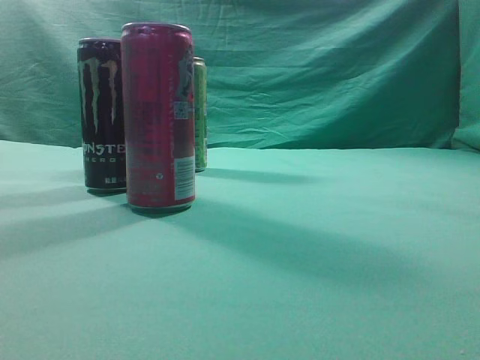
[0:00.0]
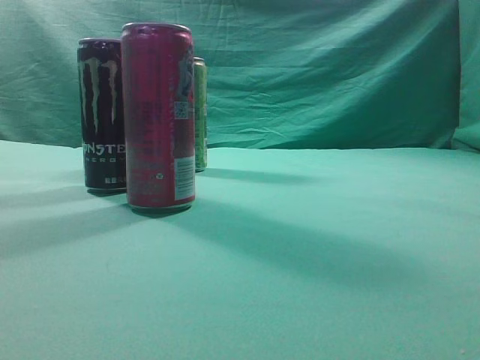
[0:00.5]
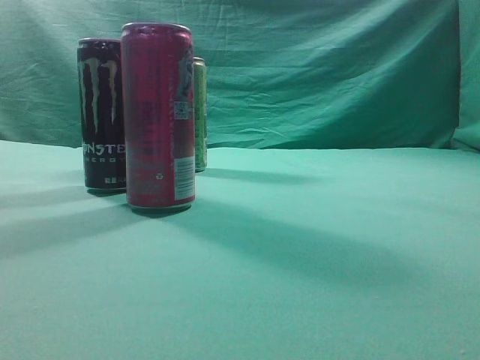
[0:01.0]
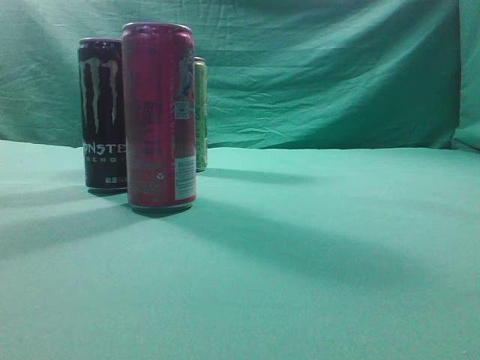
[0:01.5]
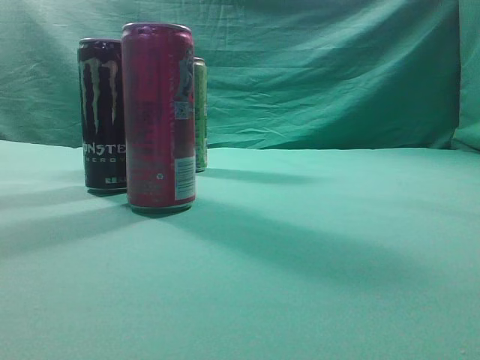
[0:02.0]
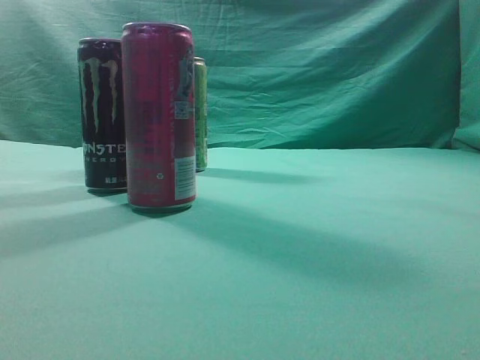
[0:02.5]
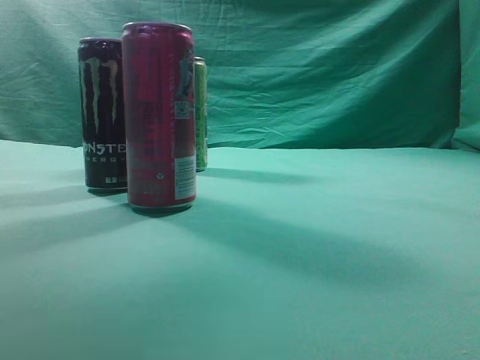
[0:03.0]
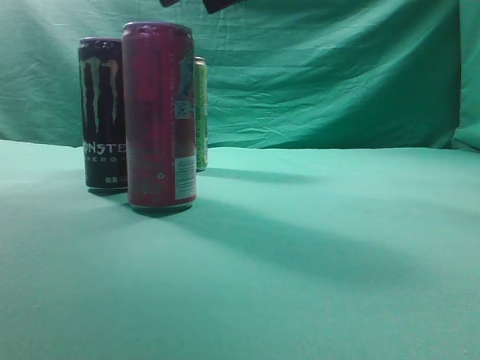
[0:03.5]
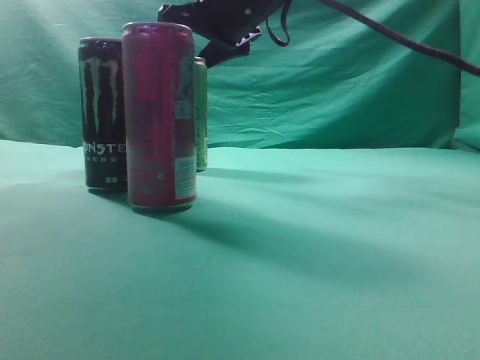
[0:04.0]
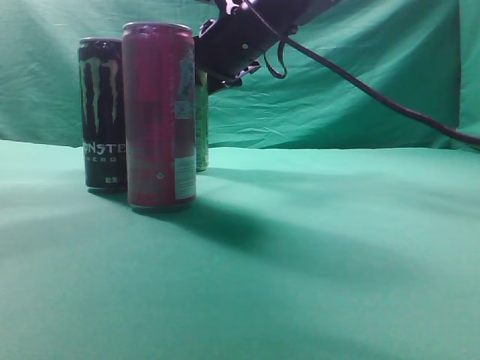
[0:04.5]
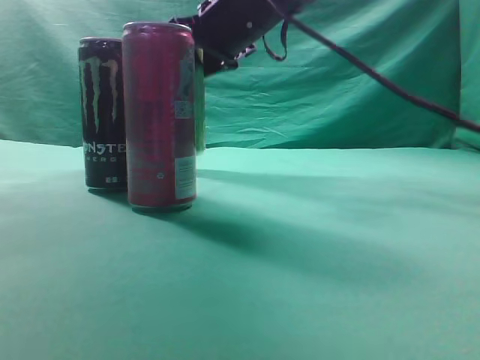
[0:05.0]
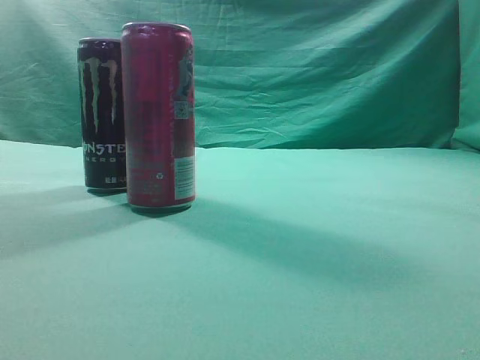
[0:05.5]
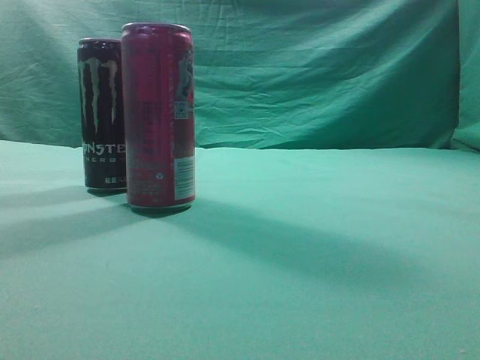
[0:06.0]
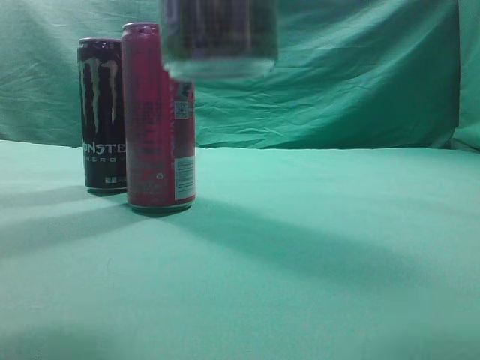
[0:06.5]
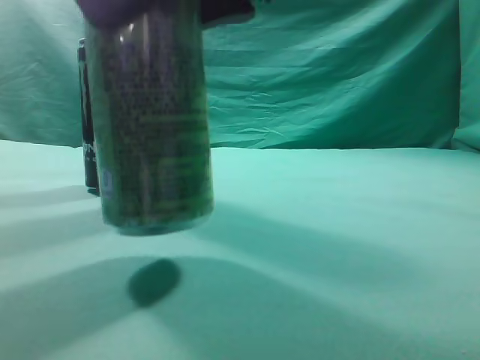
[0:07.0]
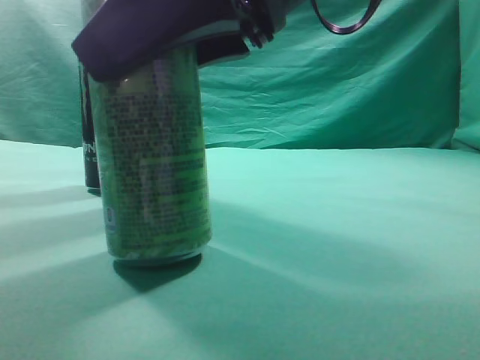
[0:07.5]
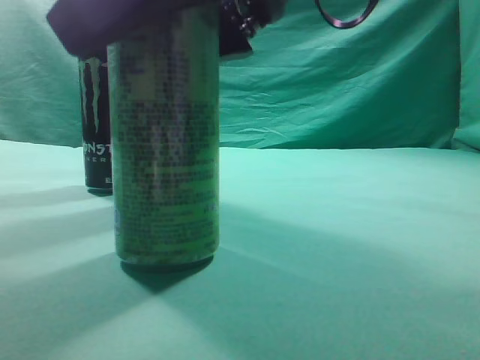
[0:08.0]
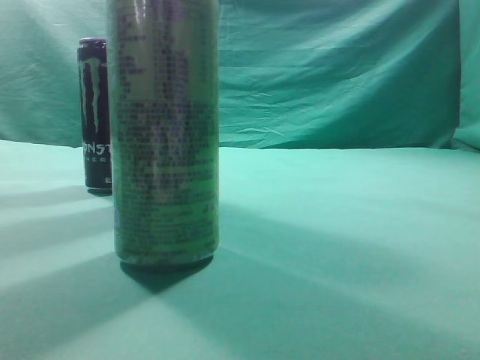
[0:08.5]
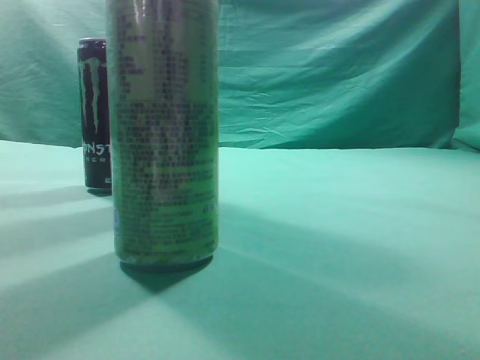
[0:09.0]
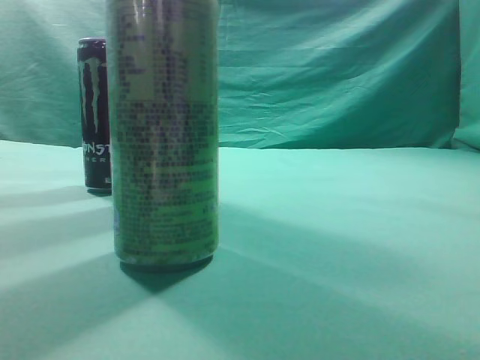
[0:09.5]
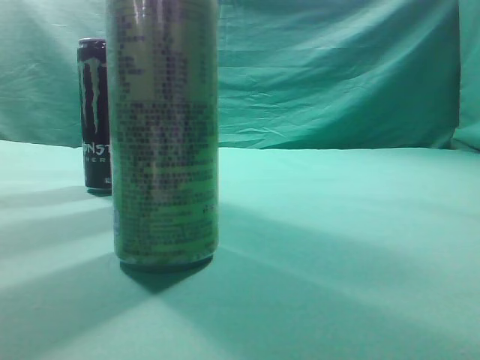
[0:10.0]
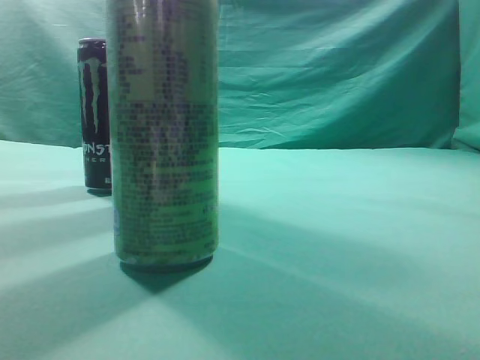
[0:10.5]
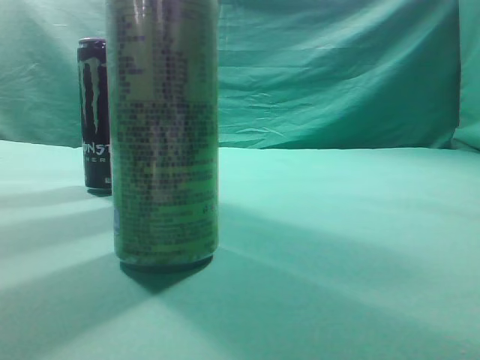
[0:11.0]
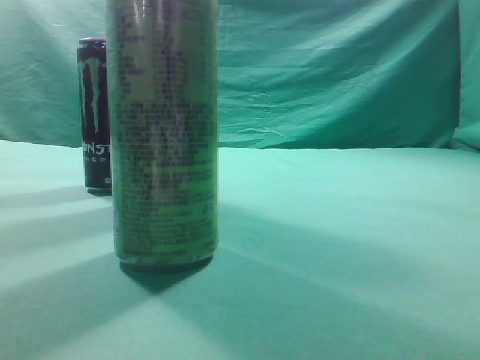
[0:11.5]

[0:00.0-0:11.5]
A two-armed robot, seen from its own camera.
Task of the whole recording: move one drink among three beverages.
Step, 0:00.0 to 0:04.5: Grasp the beverage bottle placed at the back of the desk.
Step, 0:05.0 to 0:08.0: Place the beverage bottle to the front of the table.
0:02.0 to 0:04.0: The right gripper shifts some 50 cm forward and to the left, and opens its fingers.
0:04.0 to 0:06.0: The right gripper goes roughly 30 cm backward, upward and to the right.
0:06.0 to 0:07.5: The right gripper moves downward and to the left, roughly 25 cm.
0:07.5 to 0:09.5: The right gripper goes some 25 cm upward, to the right and backward, and closes.
